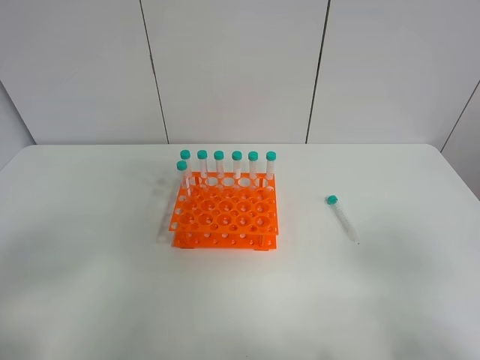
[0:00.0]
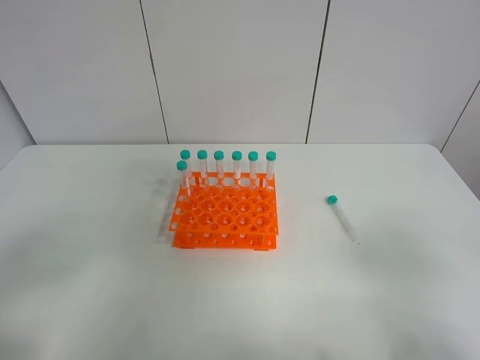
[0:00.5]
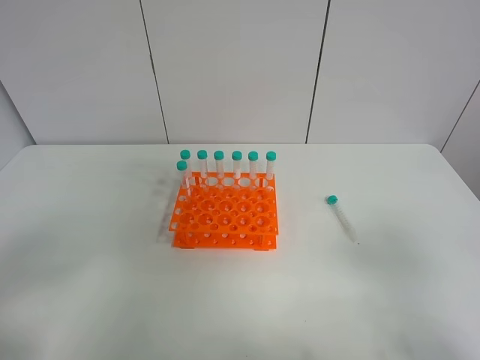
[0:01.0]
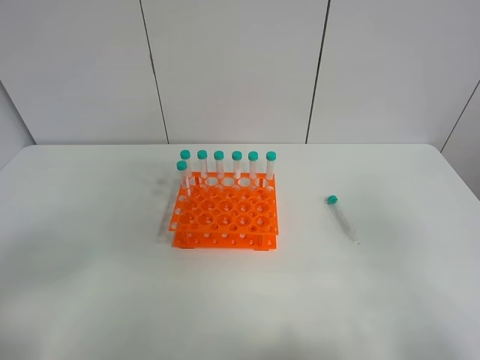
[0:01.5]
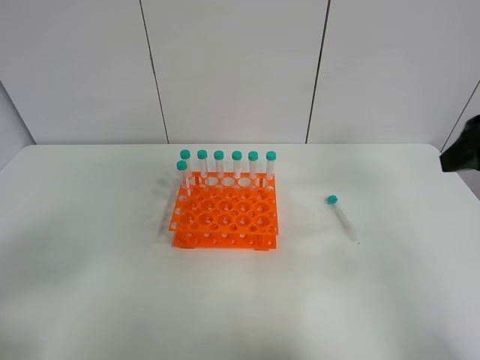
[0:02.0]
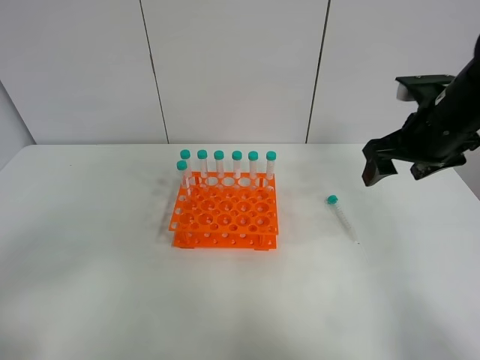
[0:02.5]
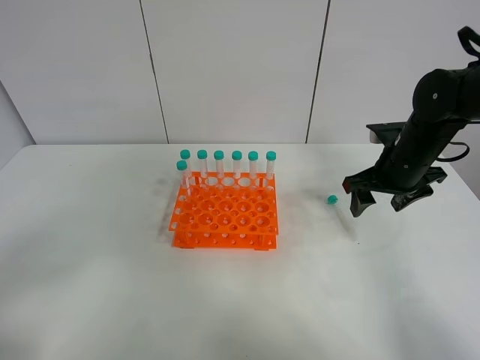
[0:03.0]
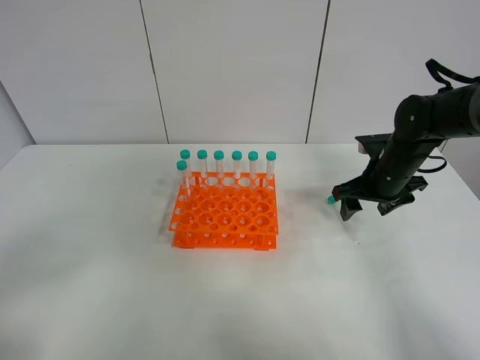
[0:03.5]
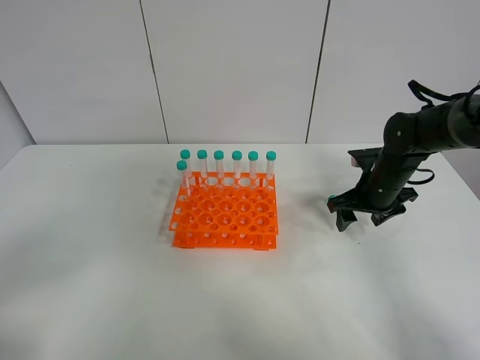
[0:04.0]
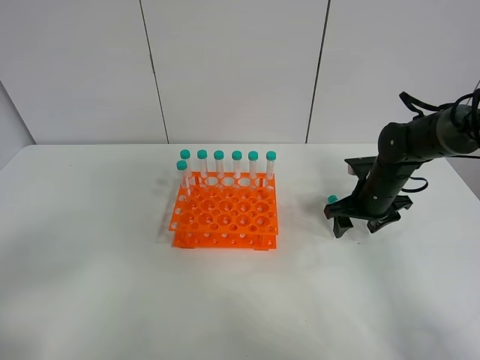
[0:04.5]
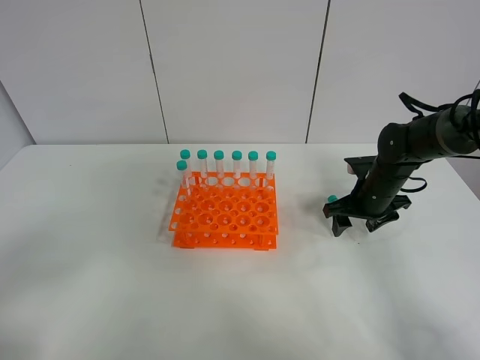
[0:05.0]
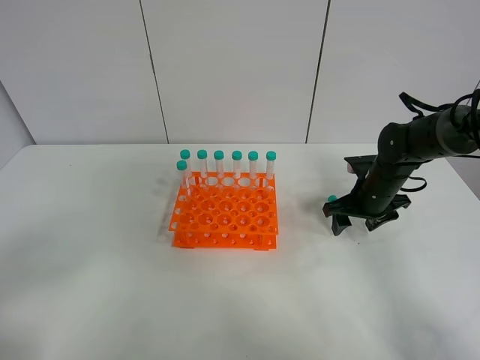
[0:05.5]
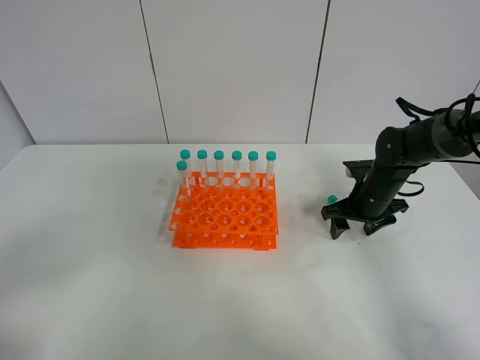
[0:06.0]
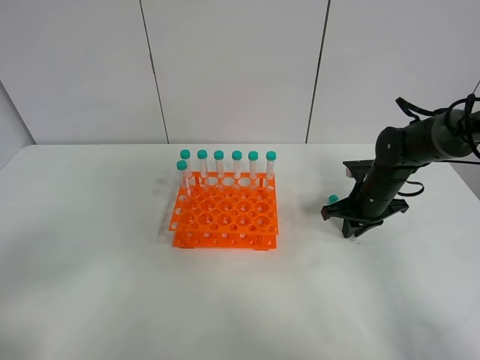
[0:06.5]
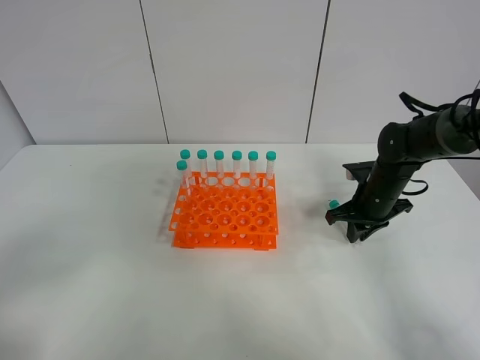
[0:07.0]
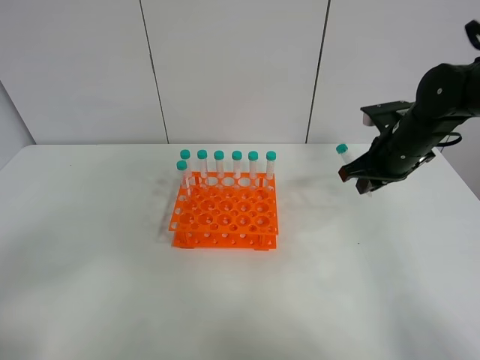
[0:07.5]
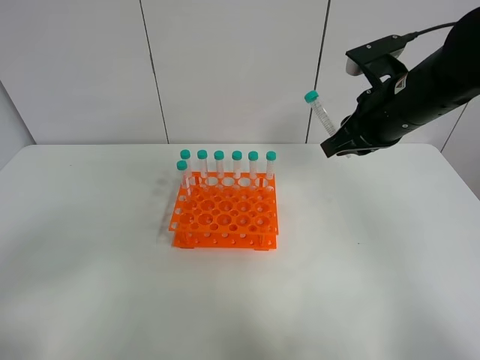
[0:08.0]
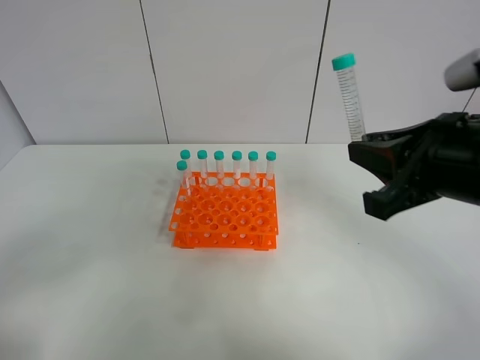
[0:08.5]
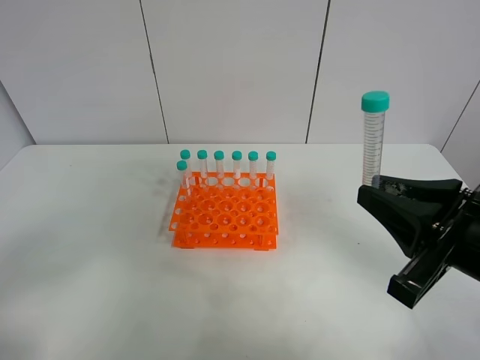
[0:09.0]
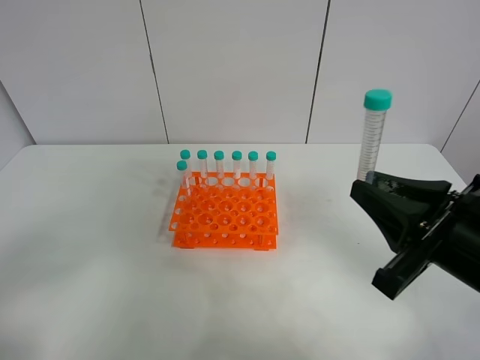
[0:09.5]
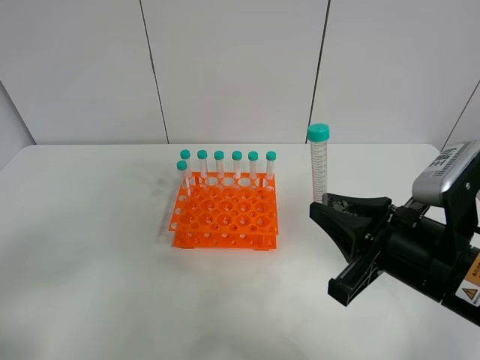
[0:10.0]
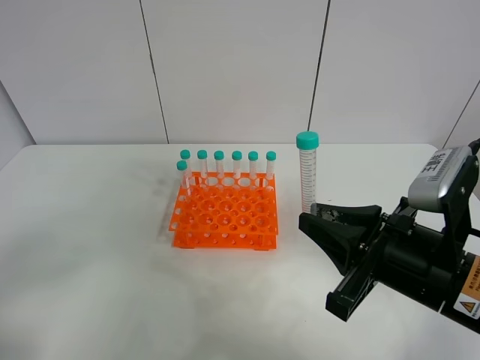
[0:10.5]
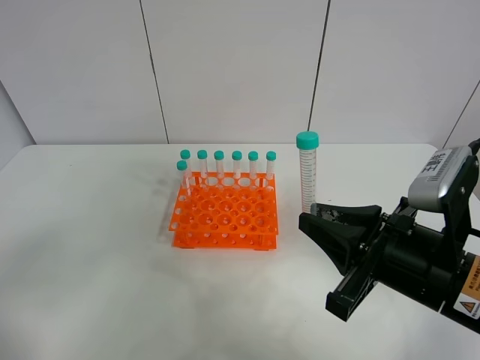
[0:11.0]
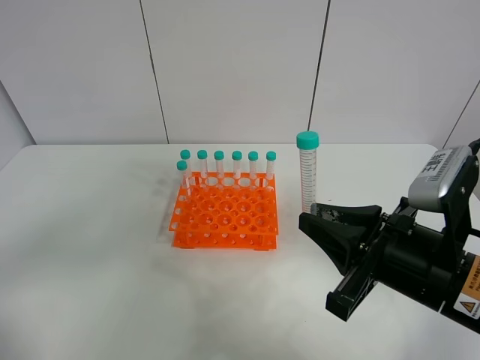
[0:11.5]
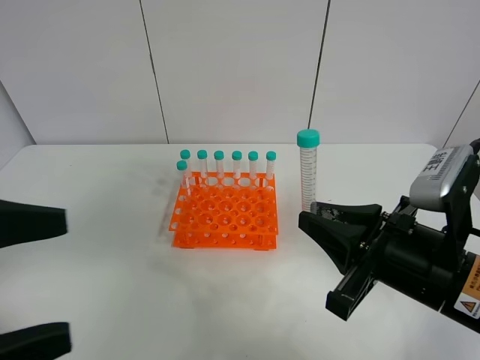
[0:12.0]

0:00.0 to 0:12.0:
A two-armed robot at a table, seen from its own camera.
Task of the whole recording: Put the test tube on the table back onto the test tube rack.
Step, 0:00.0 to 0:07.5: Pick up the test tube with the right gripper.
0:00.0 to 0:02.0: The right gripper goes about 20 cm forward.
0:02.0 to 0:04.0: The right gripper travels downward and forward by approximately 25 cm.
0:04.0 to 0:06.0: The grippers move only a little.
0:06.0 to 0:08.0: The right gripper goes roughly 20 cm upward and backward, and closes up.
0:08.0 to 0:10.0: The right gripper is displaced backward and downward by approximately 20 cm.
0:10.0 to 0:12.0: The left gripper travels to the right and forward by about 10 cm.

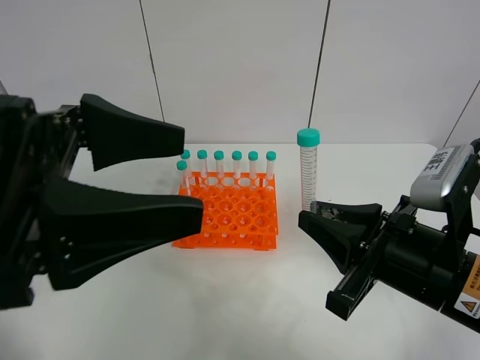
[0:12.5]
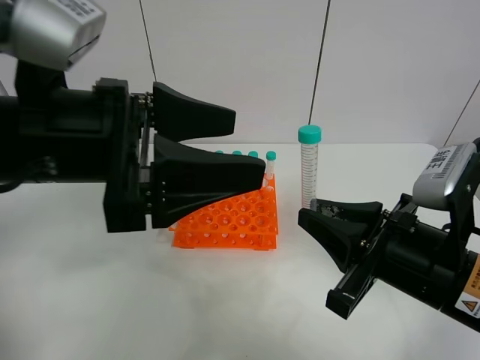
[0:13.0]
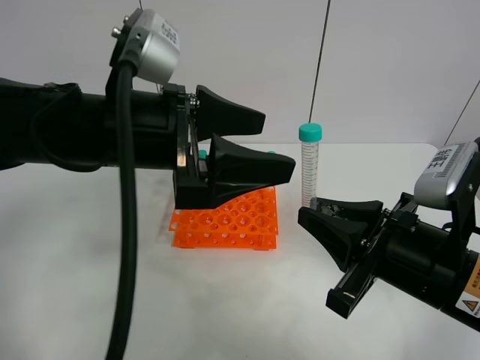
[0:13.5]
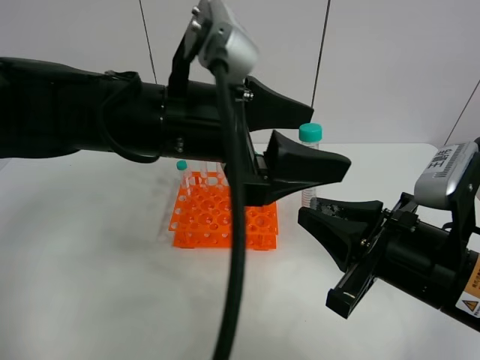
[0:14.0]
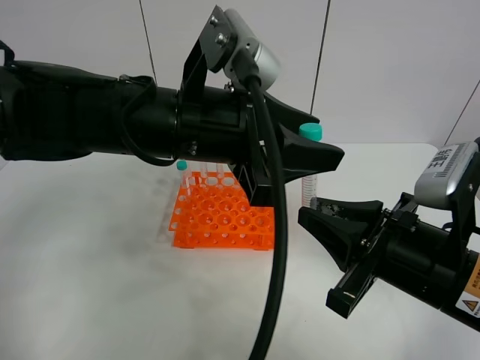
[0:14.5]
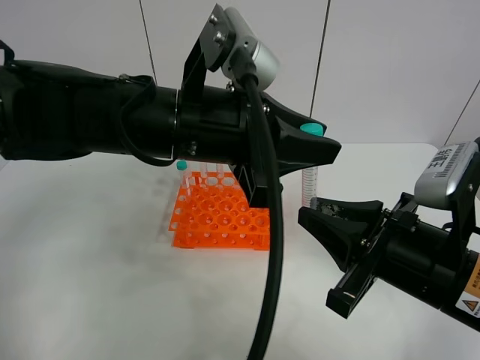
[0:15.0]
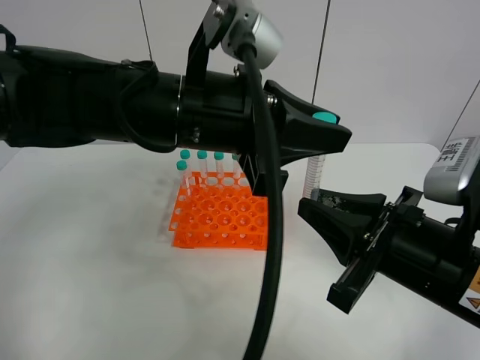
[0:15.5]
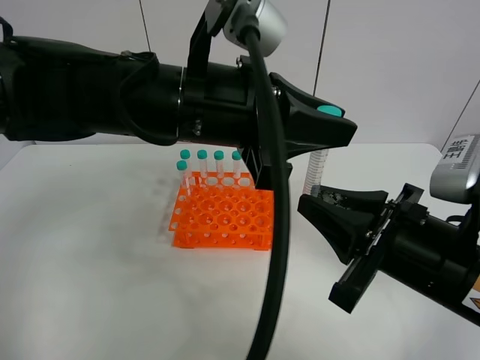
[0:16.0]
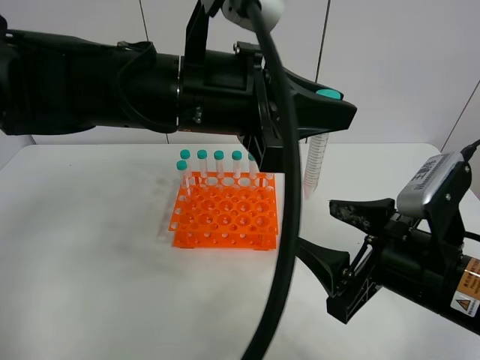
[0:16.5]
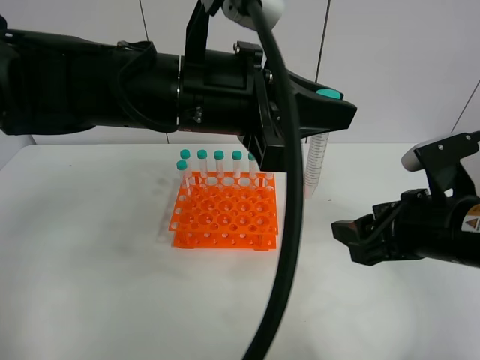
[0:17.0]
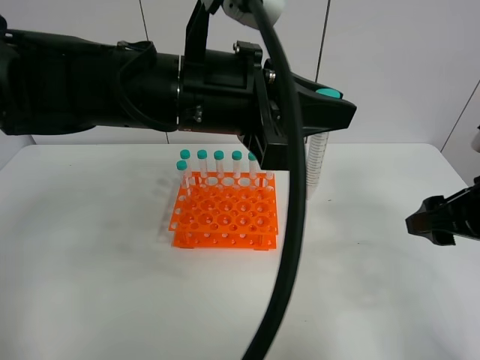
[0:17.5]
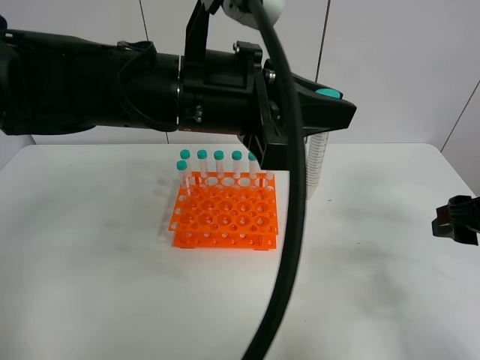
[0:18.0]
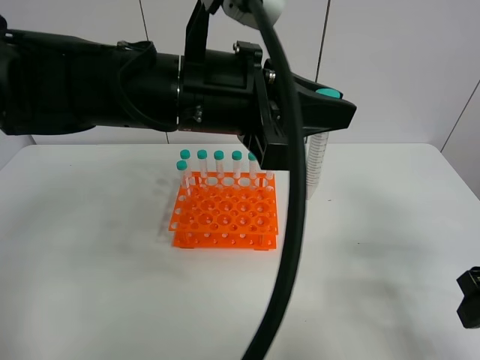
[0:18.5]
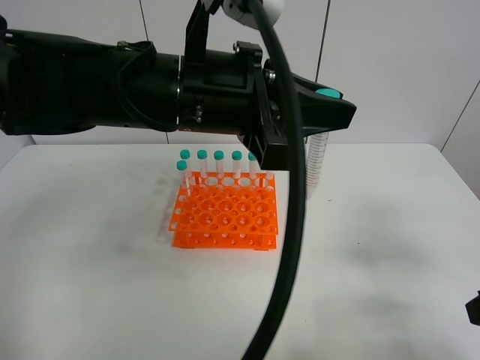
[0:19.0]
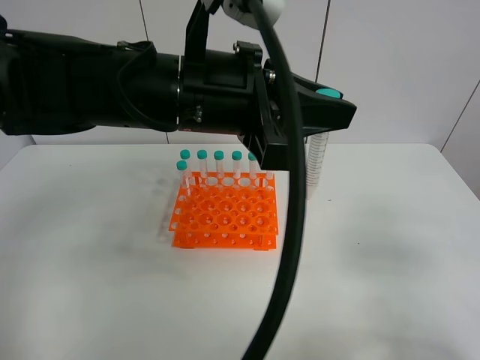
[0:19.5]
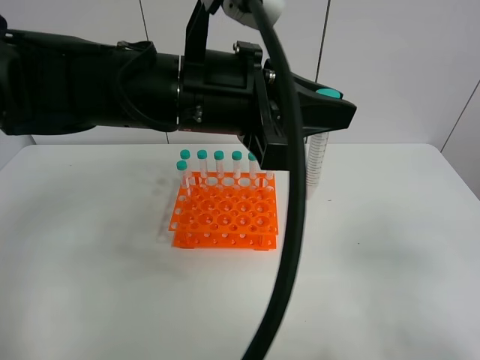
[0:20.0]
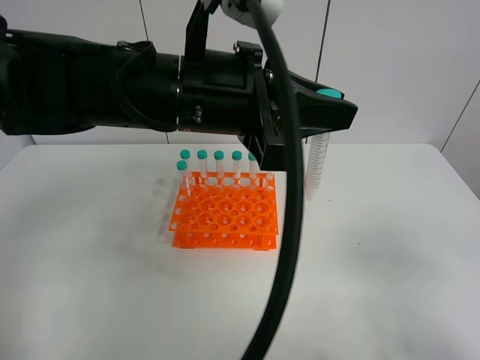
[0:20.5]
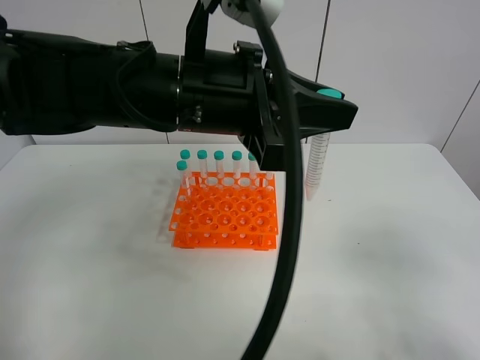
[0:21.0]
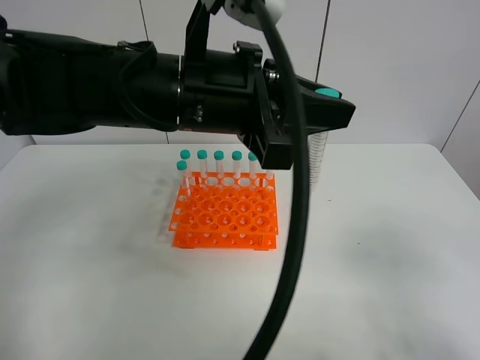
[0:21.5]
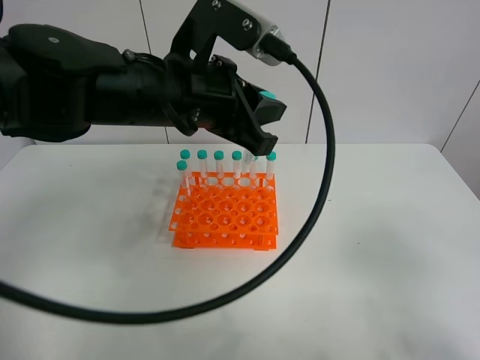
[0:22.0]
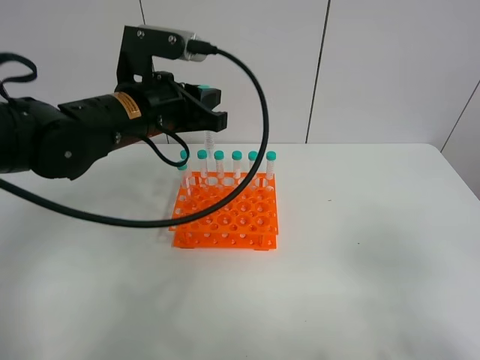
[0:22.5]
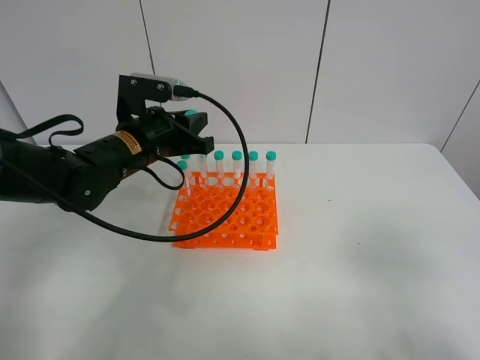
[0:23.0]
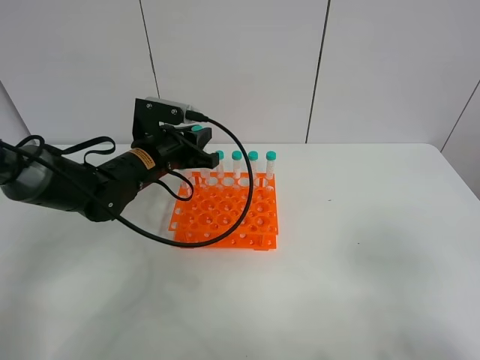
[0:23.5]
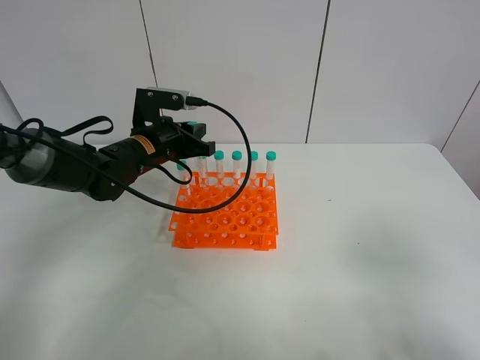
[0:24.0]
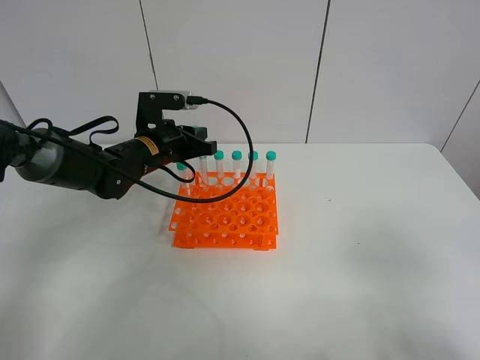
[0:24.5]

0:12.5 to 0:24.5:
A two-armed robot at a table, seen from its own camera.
Task of the whole recording: Put the test tube on the table back onto the test tube rack.
Step, 0:12.5 to 0:17.0: Move the test tube from the right gripper to the left gripper.
0:12.5 to 0:14.5: The left gripper heads to the right and forward, covering some 15 cm, and closes.
0:14.5 to 0:16.5: The right gripper opens, while the left gripper closes its fingers.
0:16.5 to 0:18.5: The right gripper moves to the right, approximately 10 cm.
0:18.5 to 0:20.5: The right gripper moves backward, about 15 cm.
0:20.5 to 0:22.5: The left gripper moves to the left, forward and downward, some 15 cm.
0:22.5 to 0:24.5: The left gripper moves downward and forward, some 15 cm.

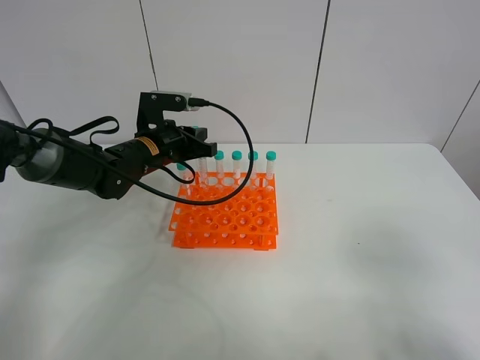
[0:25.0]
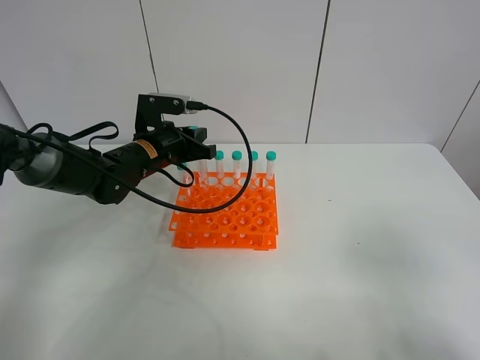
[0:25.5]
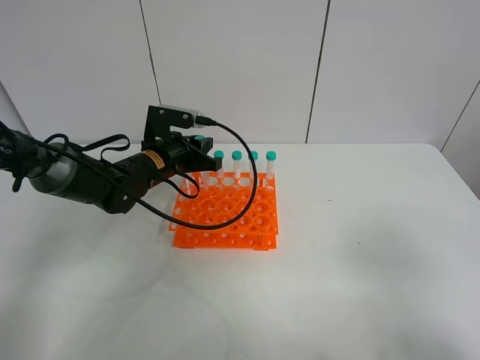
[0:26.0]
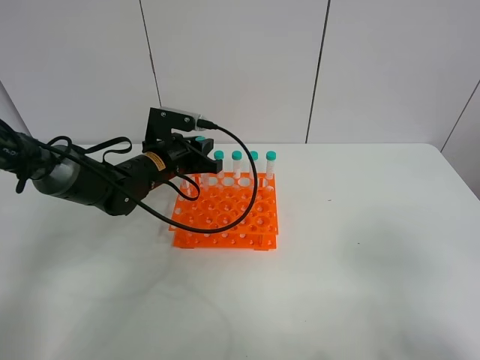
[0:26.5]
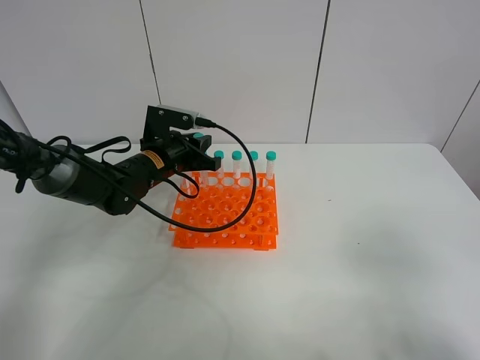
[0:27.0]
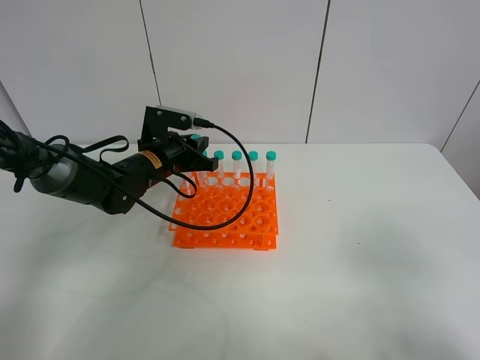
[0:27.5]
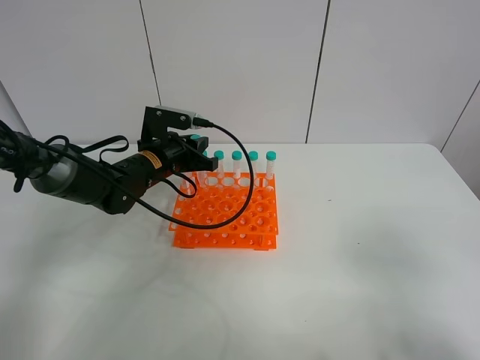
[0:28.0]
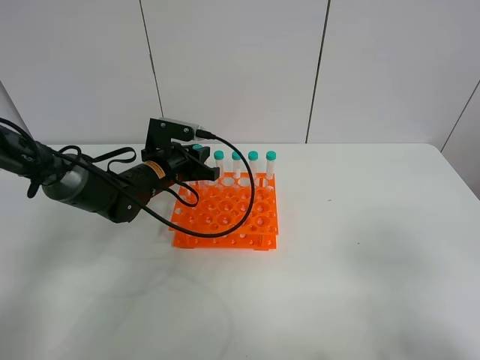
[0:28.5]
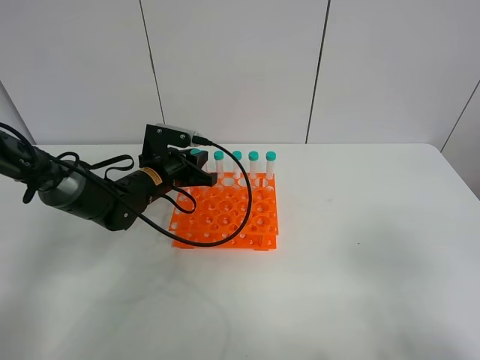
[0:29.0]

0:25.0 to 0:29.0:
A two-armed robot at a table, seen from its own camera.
Task of the whole recording: Put the test tube on the table back onto the test tube rack.
0:25.0 to 0:29.0: There are only small adjustments of the grippers.
